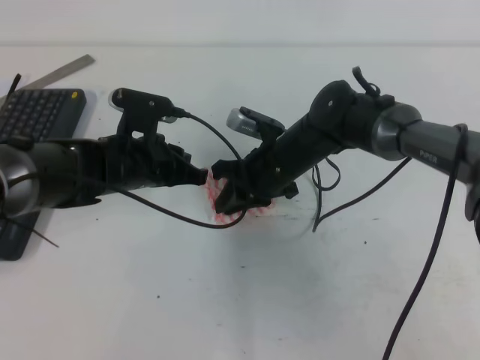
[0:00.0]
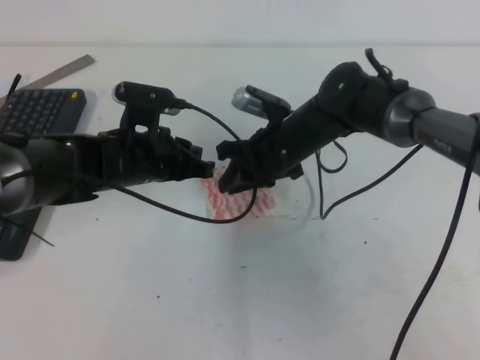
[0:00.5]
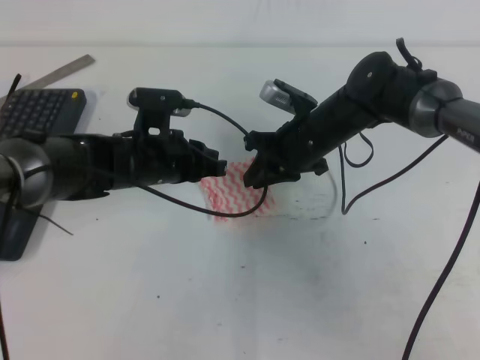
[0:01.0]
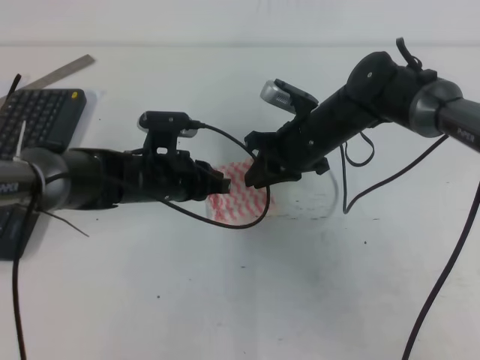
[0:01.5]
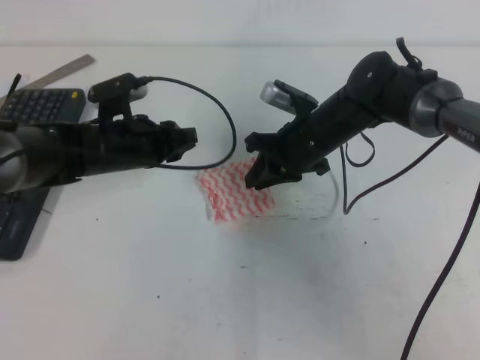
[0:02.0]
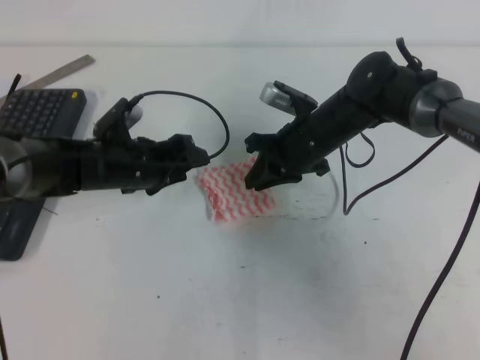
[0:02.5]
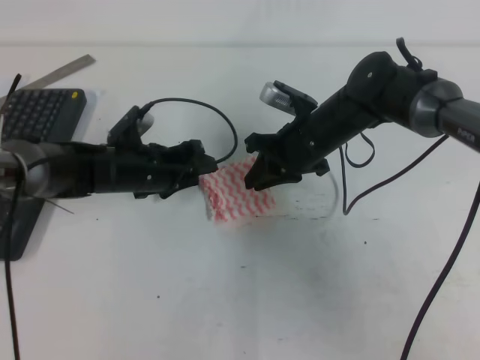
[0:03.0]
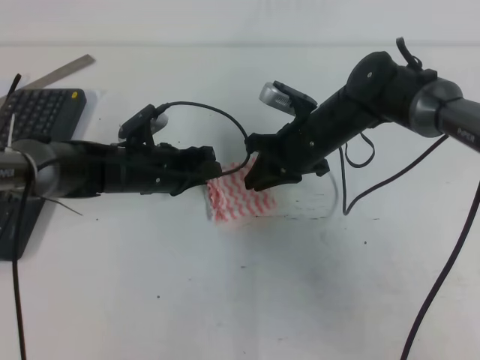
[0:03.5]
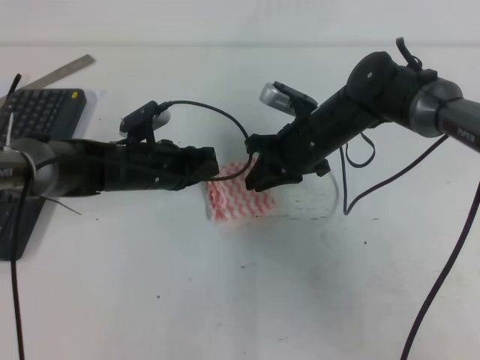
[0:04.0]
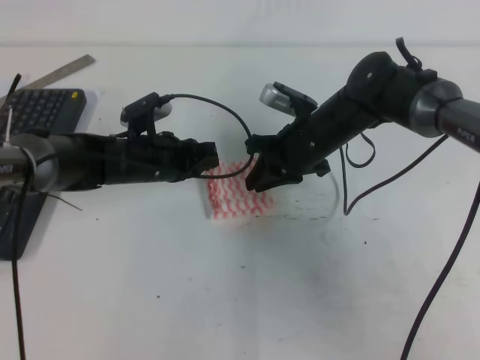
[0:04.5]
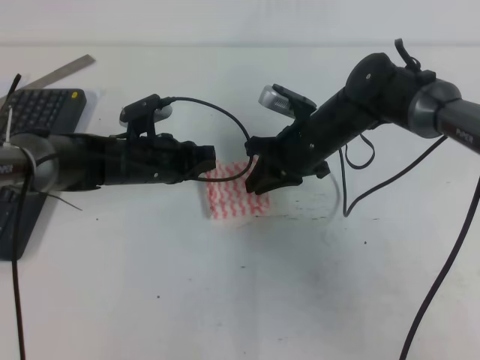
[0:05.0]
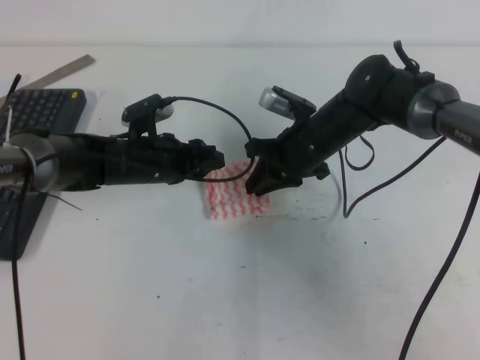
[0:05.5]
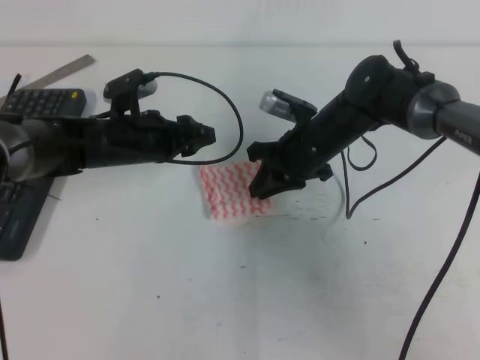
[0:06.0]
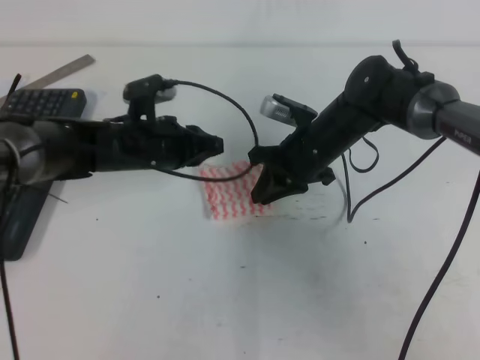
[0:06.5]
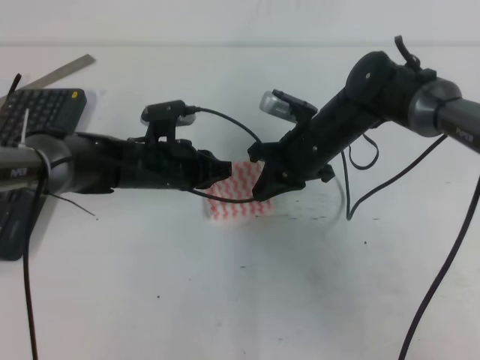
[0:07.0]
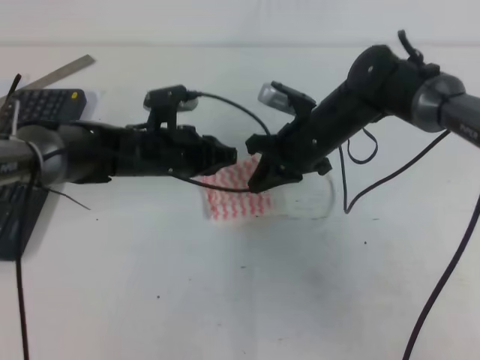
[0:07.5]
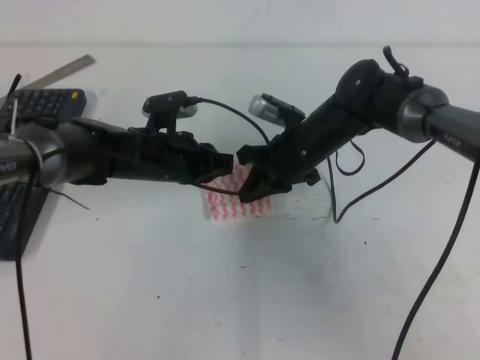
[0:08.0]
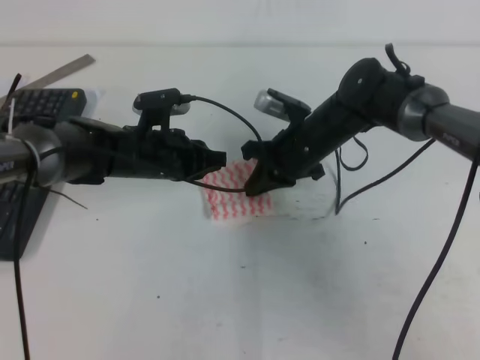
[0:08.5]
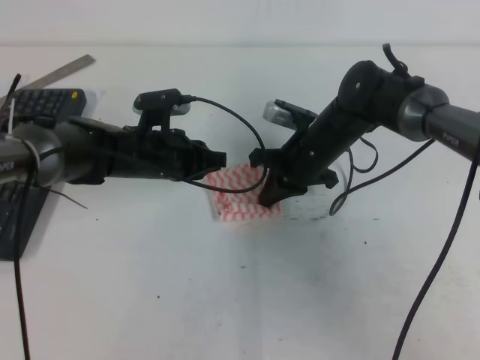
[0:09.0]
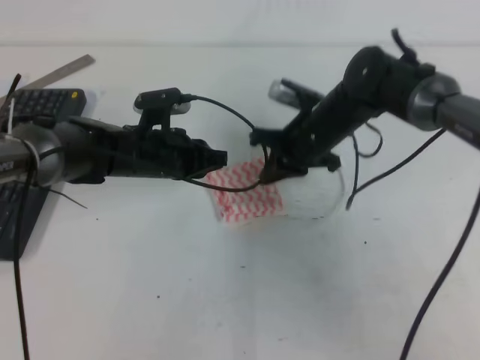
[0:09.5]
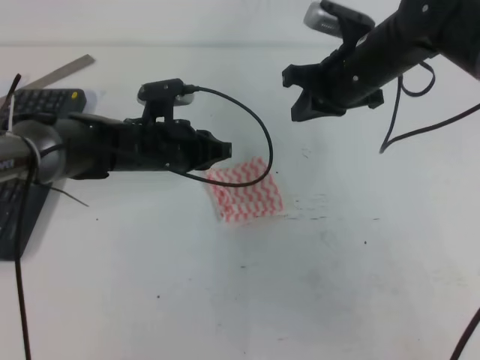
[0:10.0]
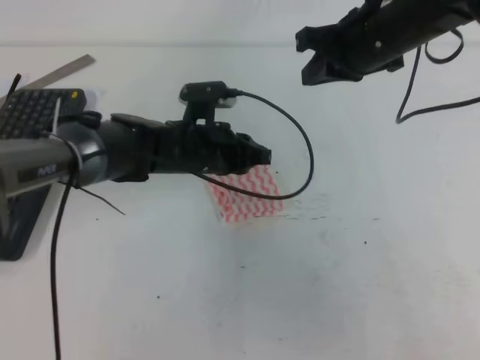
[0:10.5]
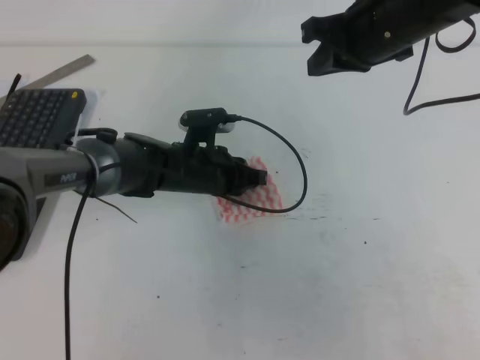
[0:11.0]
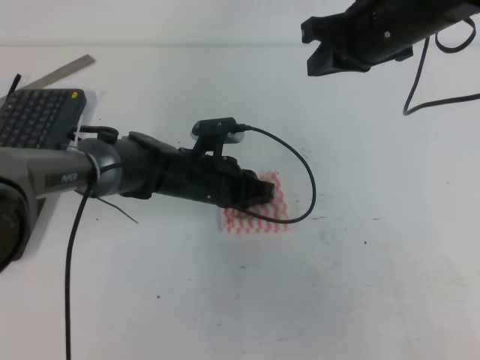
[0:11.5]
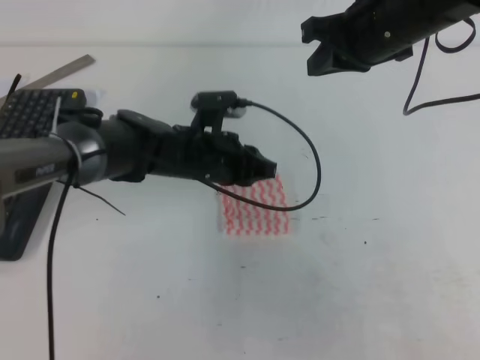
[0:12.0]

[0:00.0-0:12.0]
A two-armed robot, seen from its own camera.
0:00.0 to 0:02.0: The left gripper opens its fingers.
0:02.0 to 0:04.0: The left gripper closes.
0:04.0 to 0:06.0: The left gripper opens its fingers.
0:06.0 to 0:08.0: The left gripper closes up.
0:08.0 to 0:10.0: The right gripper shifts roughly 10 cm upward and to the right.
0:10.0 to 0:12.0: The left gripper ends up roughly 5 cm from where it was. Meanwhile the right gripper is displaced upward by approximately 10 cm.

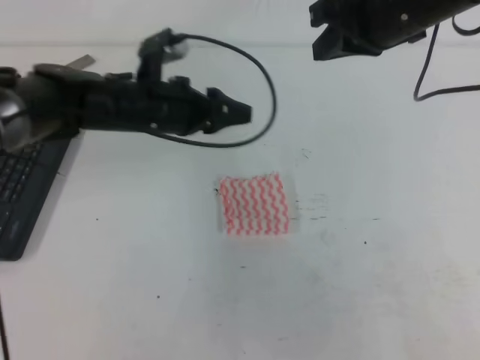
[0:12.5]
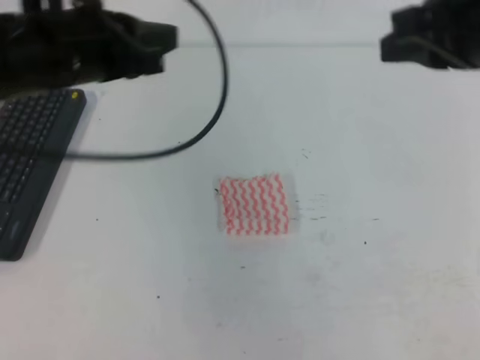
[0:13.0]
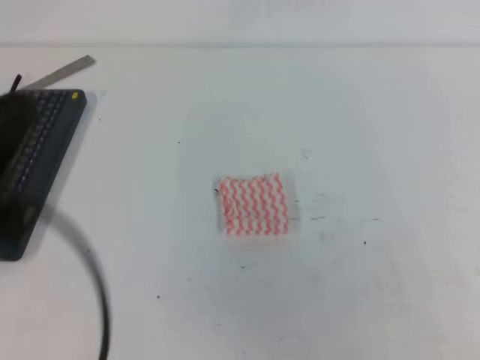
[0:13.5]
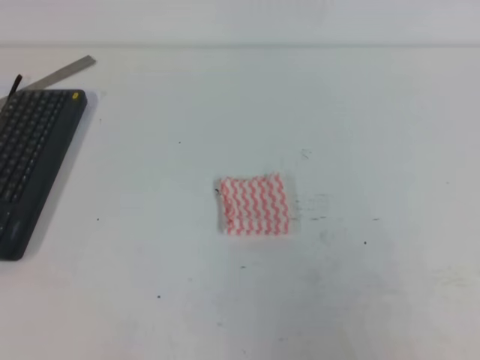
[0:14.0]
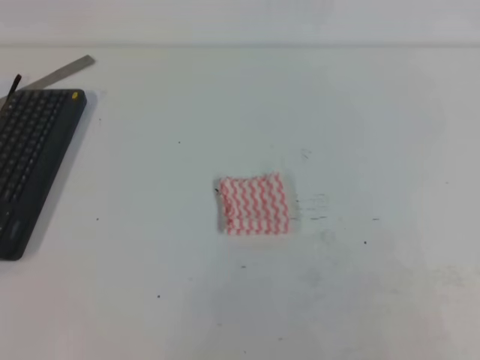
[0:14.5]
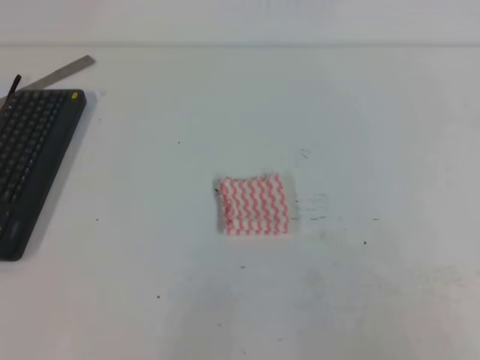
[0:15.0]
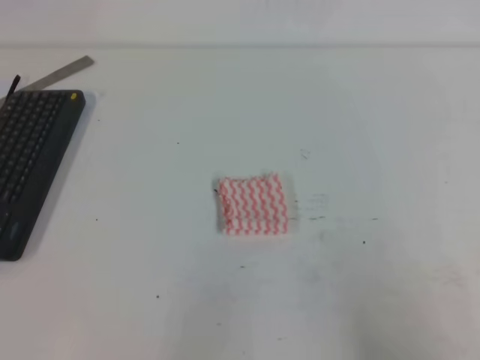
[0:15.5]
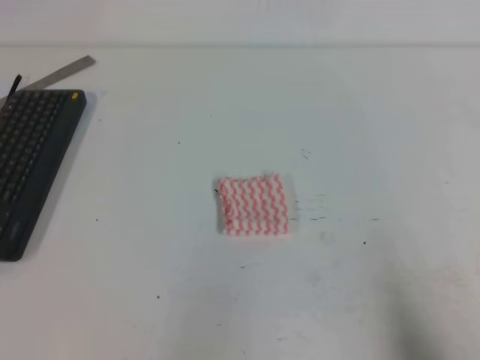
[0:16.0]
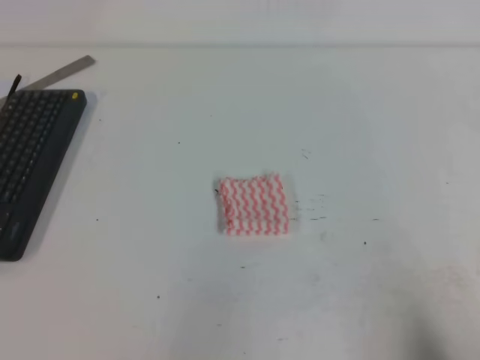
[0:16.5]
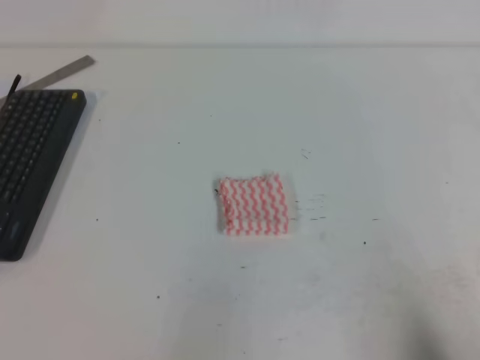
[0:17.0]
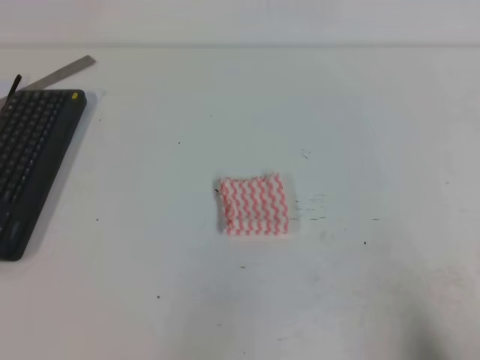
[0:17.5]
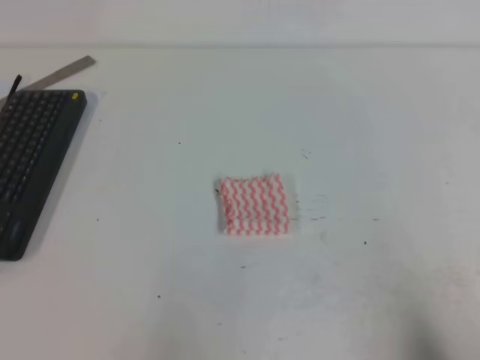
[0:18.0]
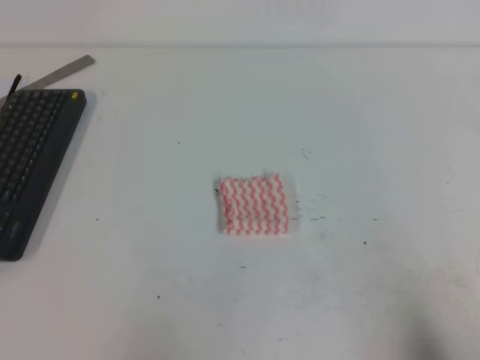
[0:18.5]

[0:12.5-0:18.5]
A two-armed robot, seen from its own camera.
Step, 0:12.5 to 0:18.5: Fold the towel.
0:12.5 to 0:14.5: The left gripper moves backward and to the left, some 35 cm, and closes up; the right gripper moves backward, some 40 cm.
0:14.5 to 0:16.5: The right gripper is displaced downward and forward by roughly 15 cm.
